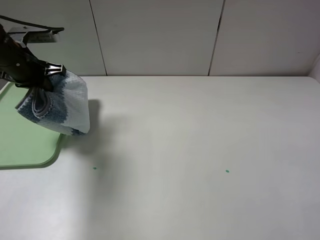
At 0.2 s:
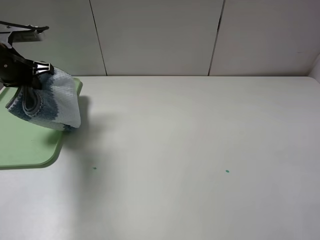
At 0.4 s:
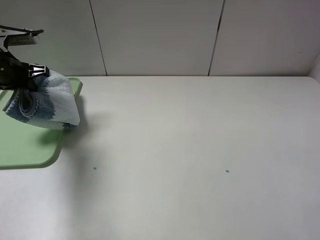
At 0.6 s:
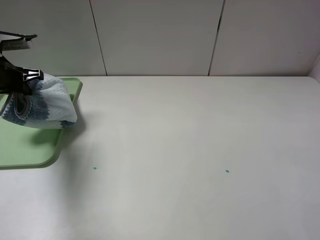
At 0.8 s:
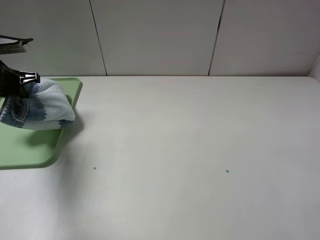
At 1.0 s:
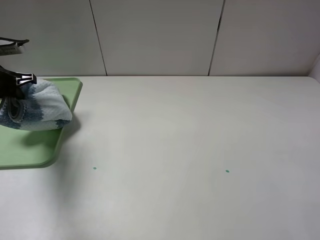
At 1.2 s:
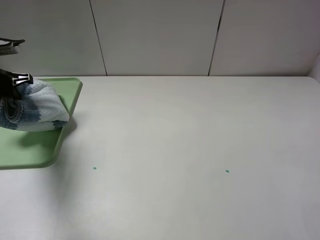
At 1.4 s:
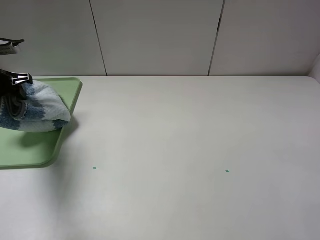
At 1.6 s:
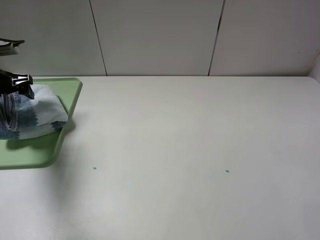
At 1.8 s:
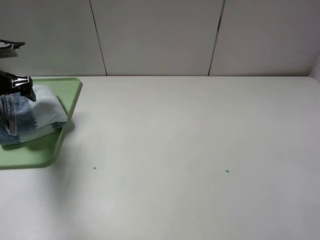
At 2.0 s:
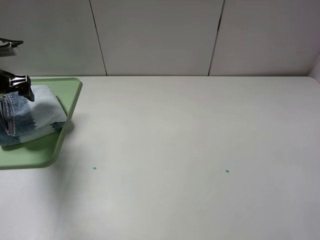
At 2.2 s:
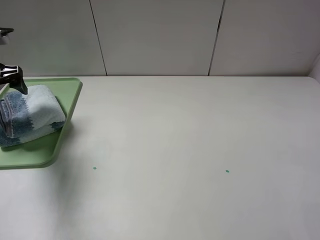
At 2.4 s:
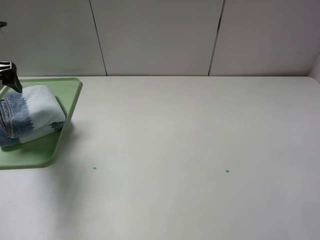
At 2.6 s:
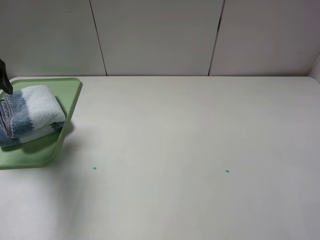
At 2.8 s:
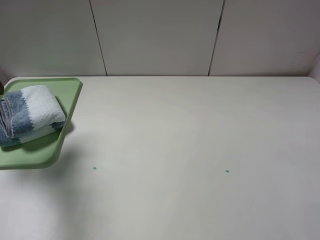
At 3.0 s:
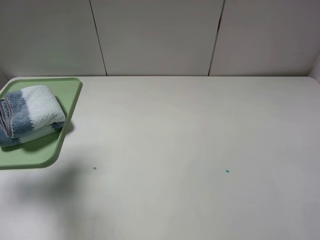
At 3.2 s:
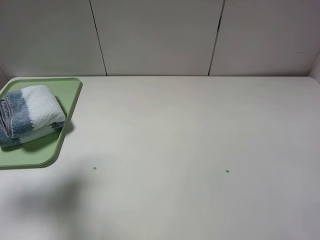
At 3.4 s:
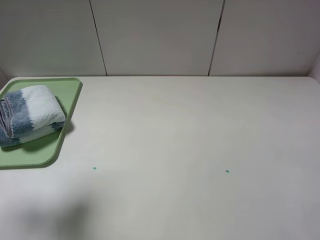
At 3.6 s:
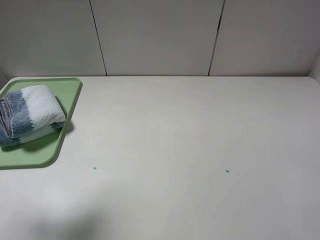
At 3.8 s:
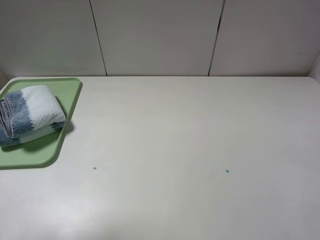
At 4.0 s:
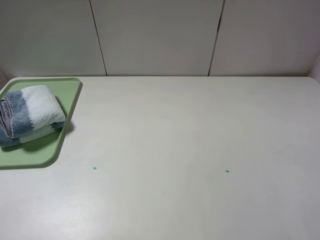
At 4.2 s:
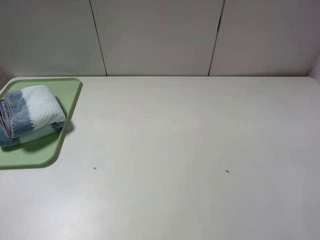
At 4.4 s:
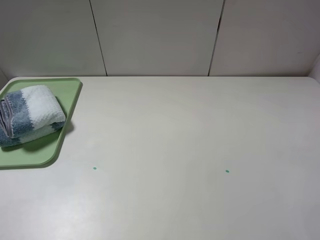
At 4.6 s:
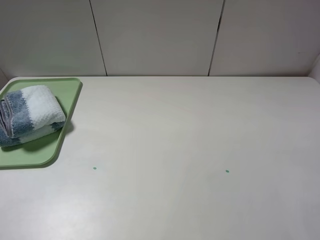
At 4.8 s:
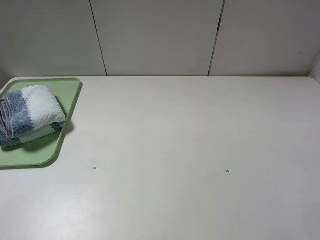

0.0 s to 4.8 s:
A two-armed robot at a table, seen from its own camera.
0.0 to 1.6 s: The left gripper travels to the left by roughly 10 cm, and opens up.
1.6 to 3.2 s: The left gripper shifts approximately 20 cm upward and backward.
3.2 to 4.8 s: The left gripper goes approximately 20 cm backward.
